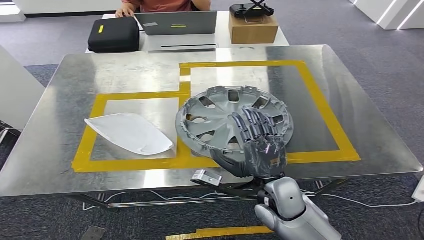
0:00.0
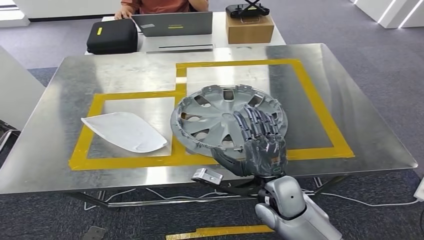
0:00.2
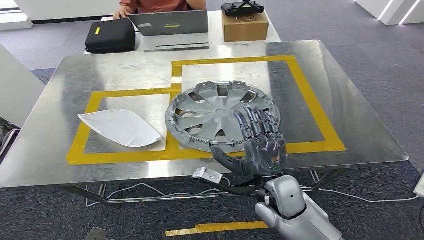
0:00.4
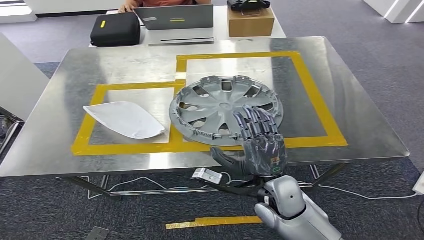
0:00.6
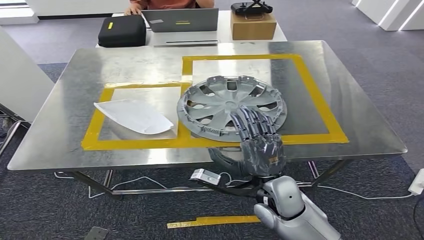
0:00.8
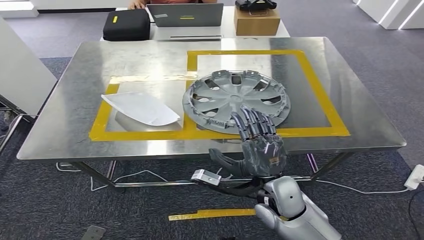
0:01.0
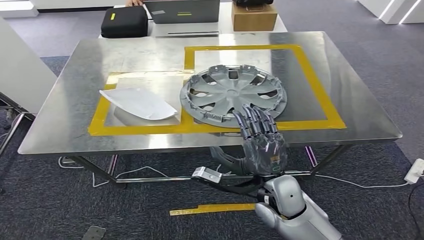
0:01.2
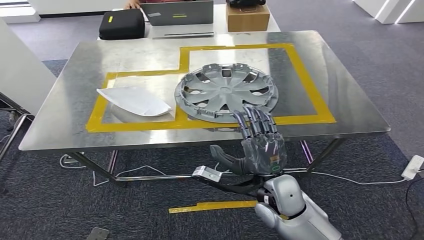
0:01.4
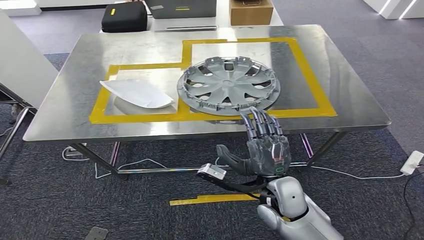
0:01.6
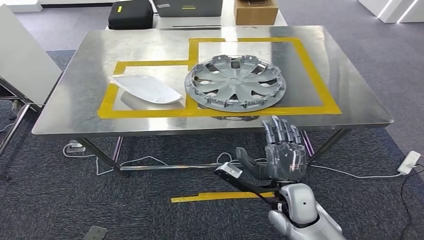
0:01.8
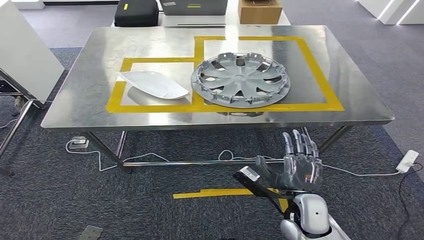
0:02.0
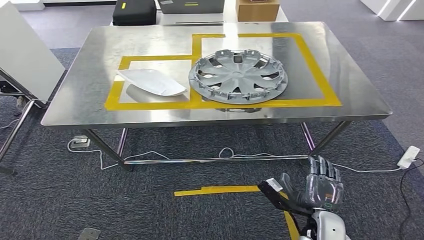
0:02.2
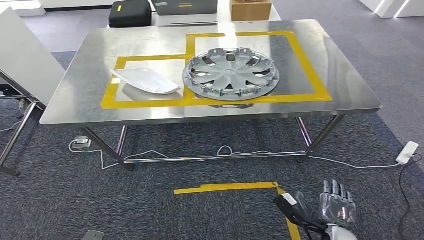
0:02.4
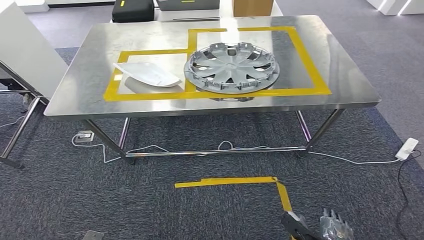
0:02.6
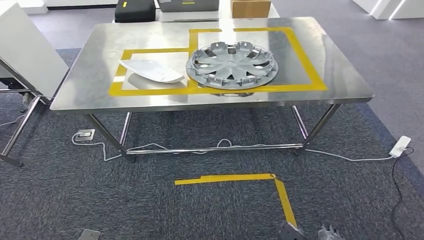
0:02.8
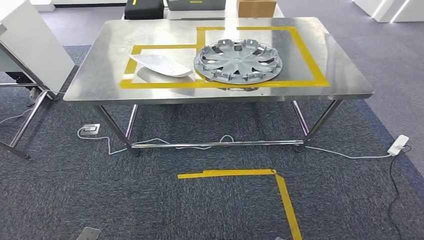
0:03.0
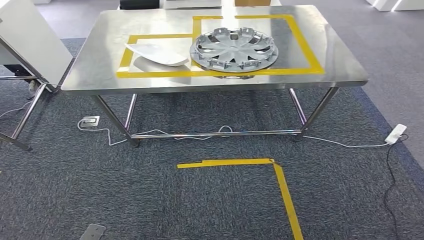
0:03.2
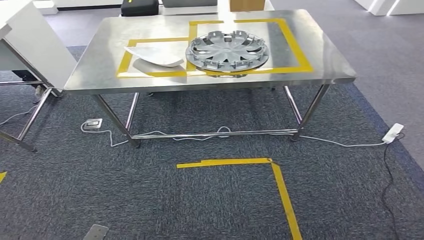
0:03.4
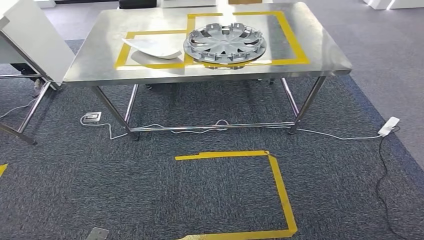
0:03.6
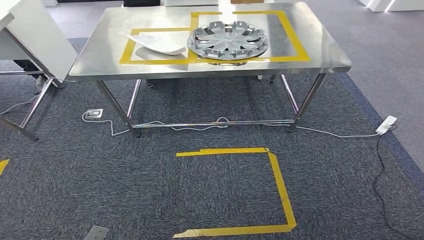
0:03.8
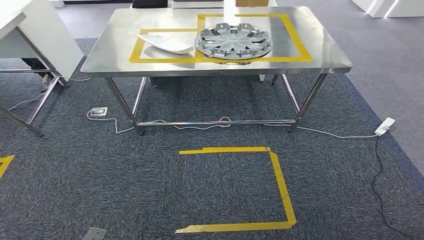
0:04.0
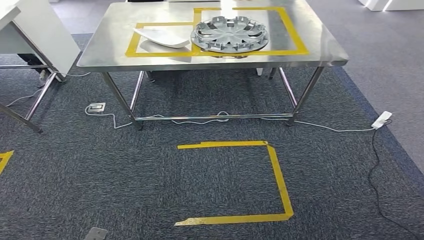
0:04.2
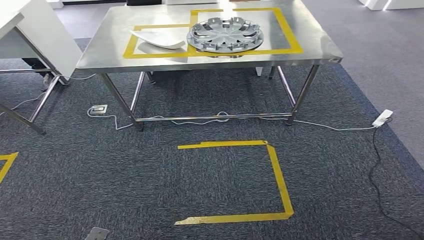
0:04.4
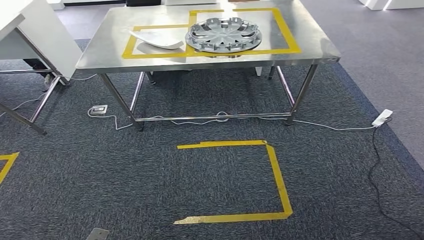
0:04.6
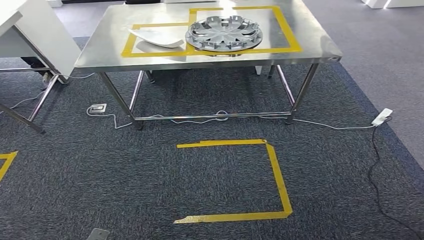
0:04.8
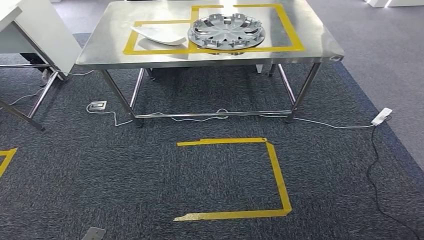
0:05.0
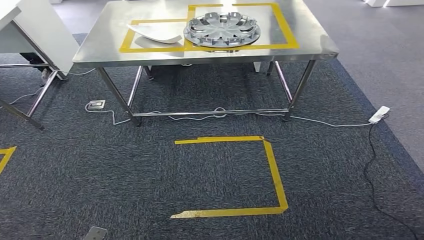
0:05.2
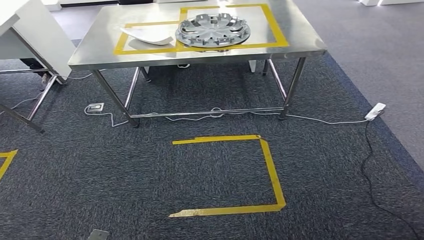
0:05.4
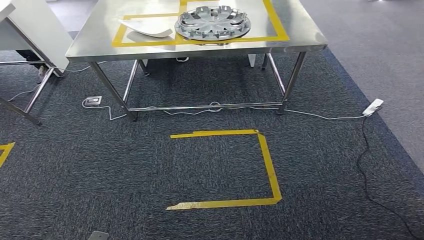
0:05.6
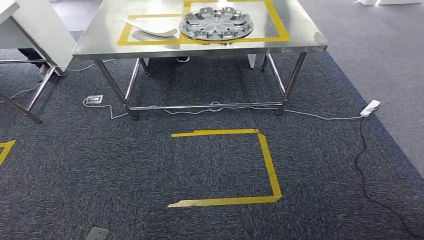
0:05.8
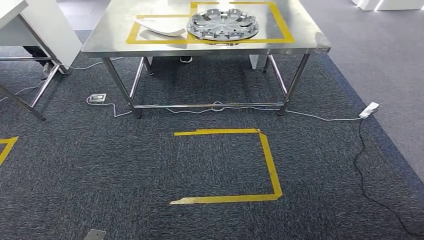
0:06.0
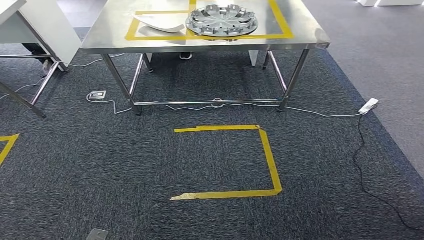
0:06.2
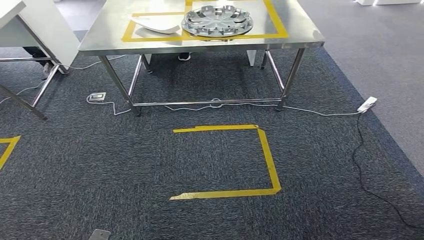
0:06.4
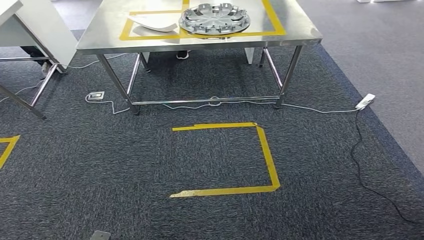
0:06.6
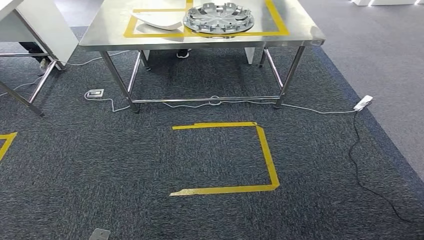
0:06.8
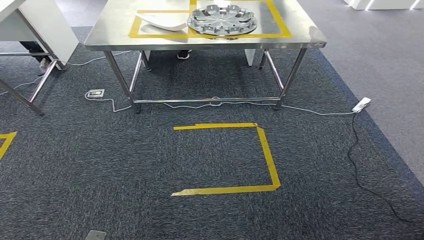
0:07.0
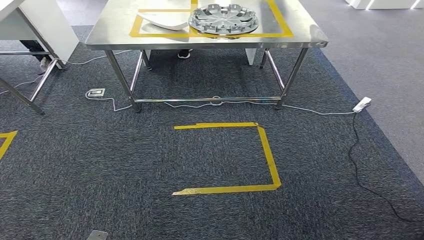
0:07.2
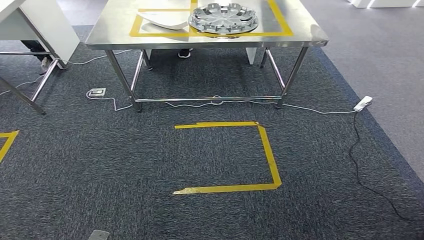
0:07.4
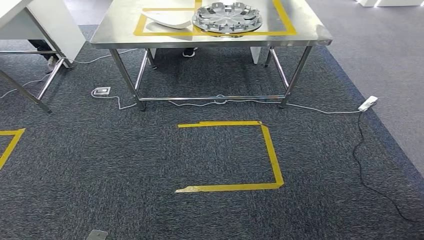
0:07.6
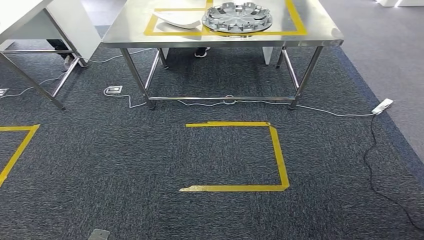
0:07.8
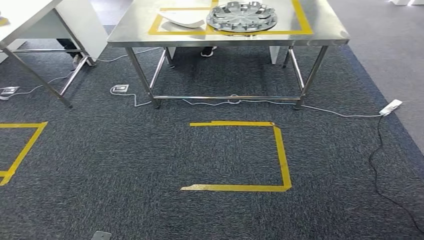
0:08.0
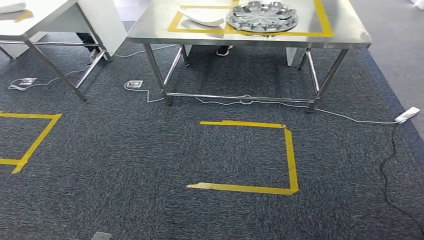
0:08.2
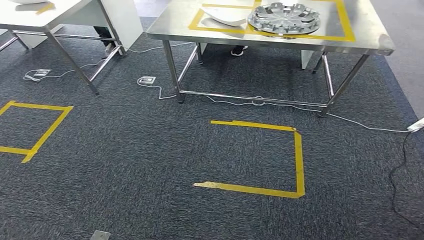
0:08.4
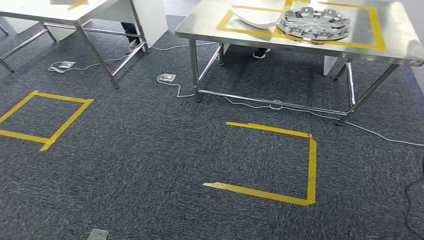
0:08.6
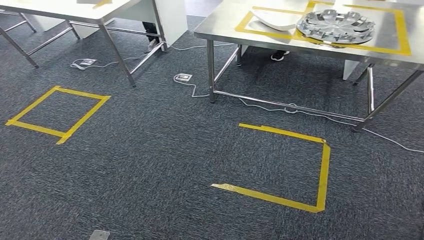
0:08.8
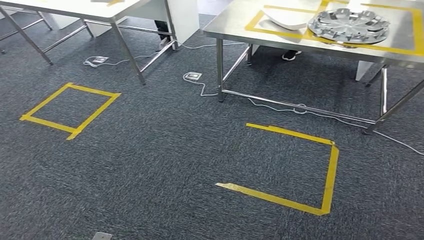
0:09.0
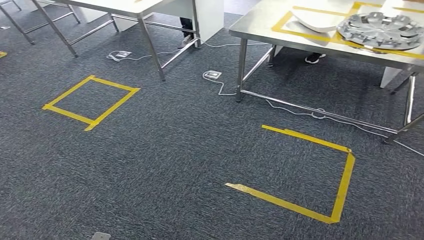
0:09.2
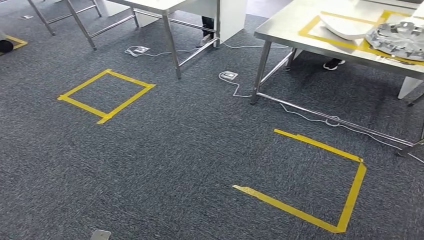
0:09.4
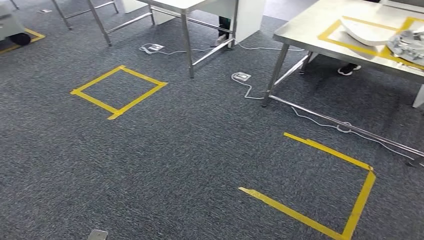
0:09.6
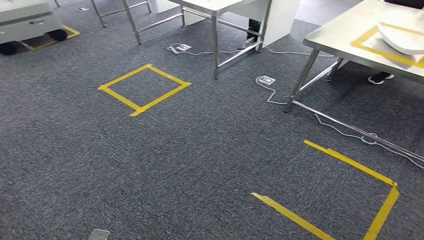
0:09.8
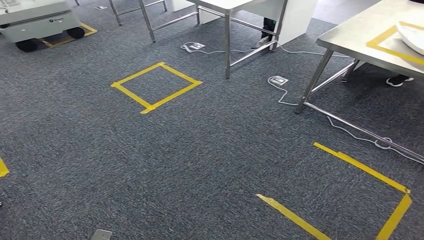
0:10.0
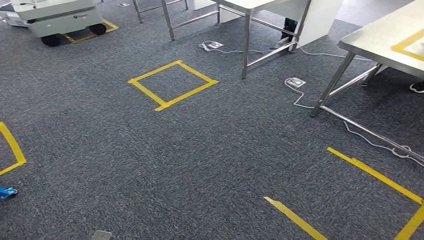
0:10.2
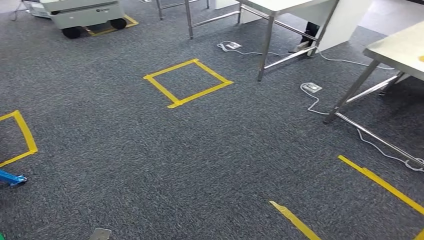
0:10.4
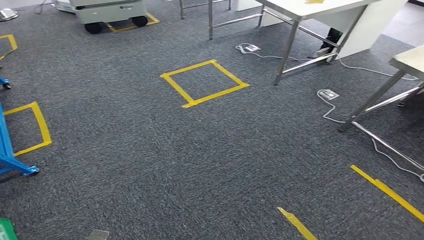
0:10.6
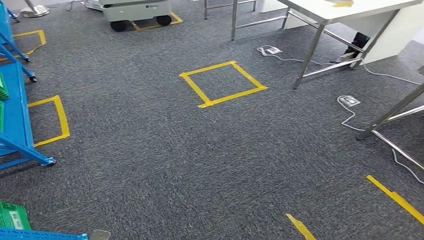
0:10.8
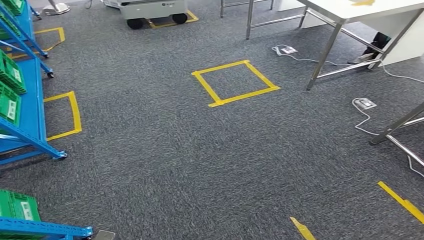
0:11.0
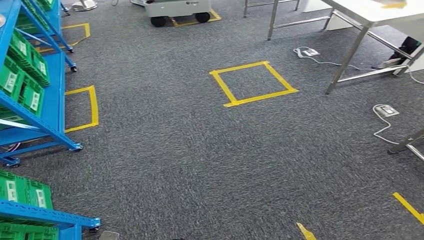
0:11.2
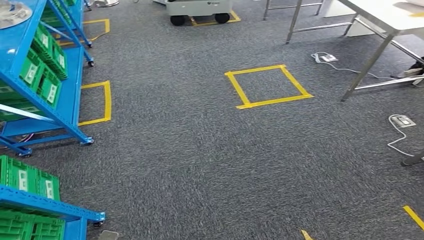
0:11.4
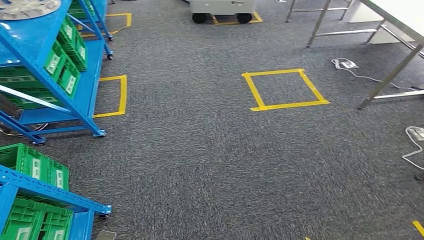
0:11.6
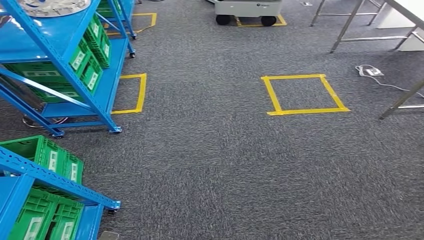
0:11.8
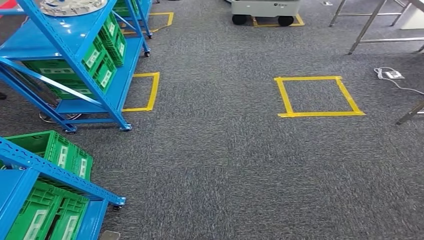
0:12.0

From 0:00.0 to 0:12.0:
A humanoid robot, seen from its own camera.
From 0:06.0 to 0:07.6: The hands move only a little.

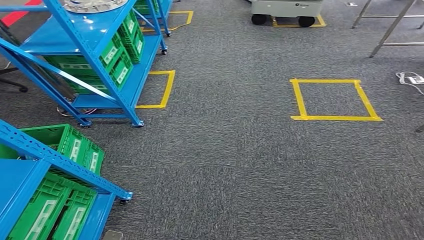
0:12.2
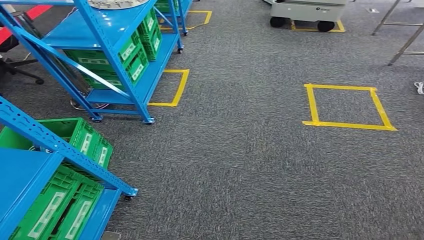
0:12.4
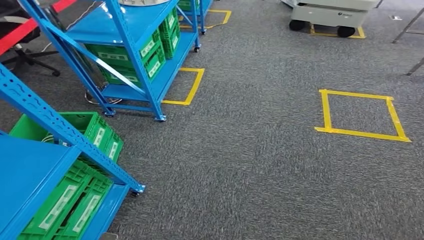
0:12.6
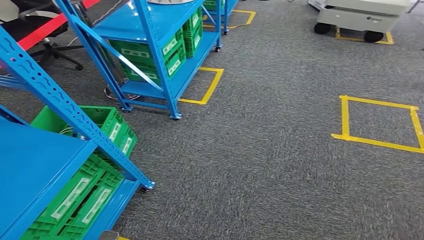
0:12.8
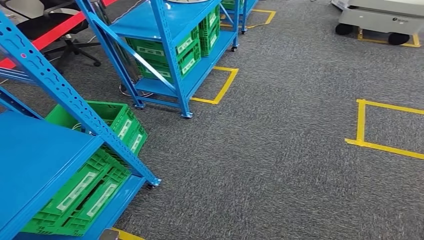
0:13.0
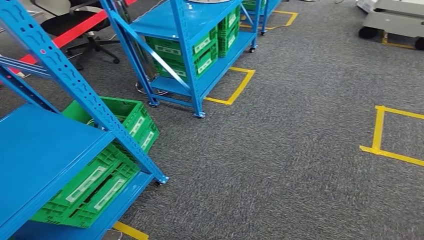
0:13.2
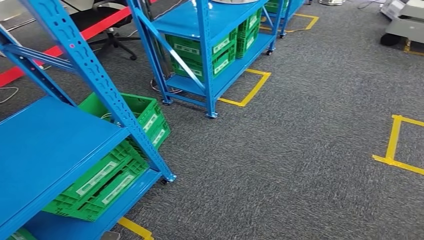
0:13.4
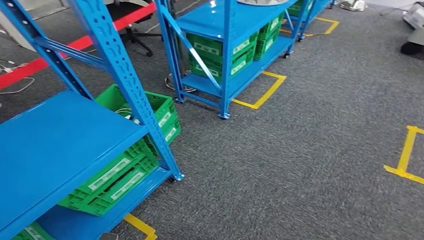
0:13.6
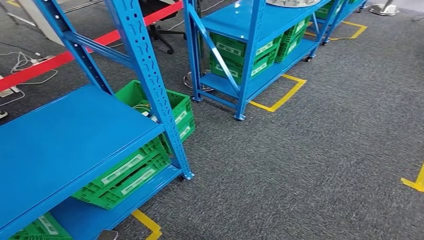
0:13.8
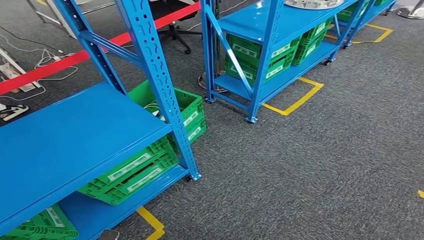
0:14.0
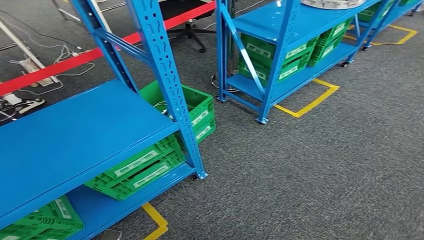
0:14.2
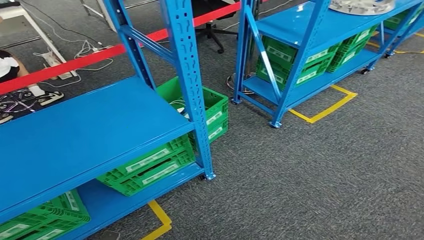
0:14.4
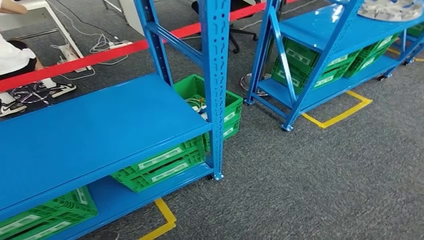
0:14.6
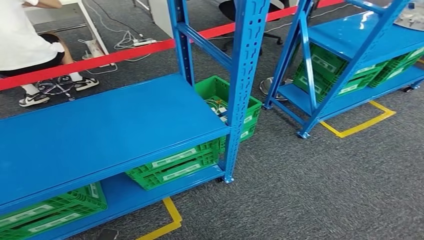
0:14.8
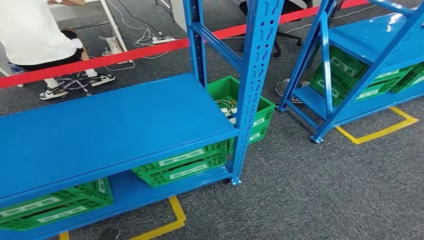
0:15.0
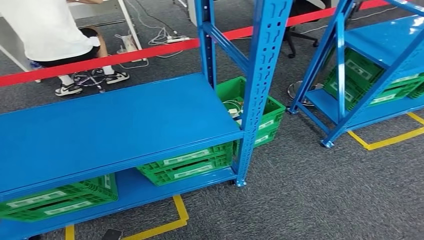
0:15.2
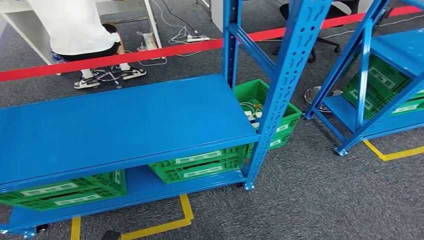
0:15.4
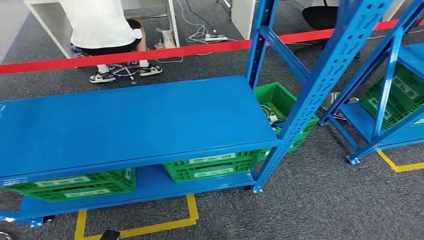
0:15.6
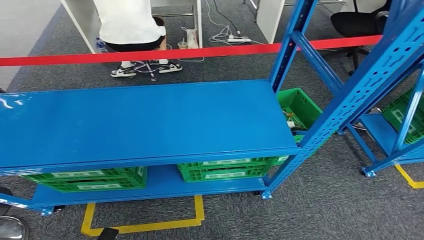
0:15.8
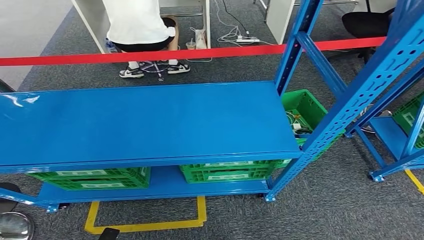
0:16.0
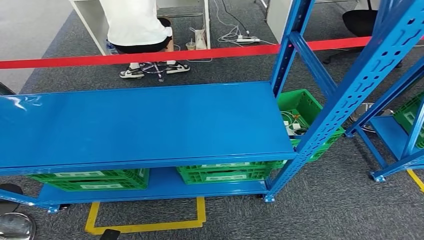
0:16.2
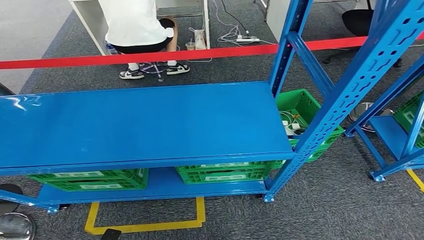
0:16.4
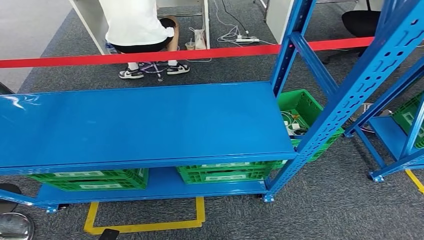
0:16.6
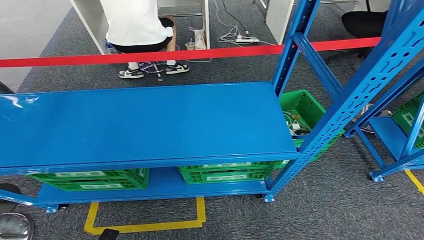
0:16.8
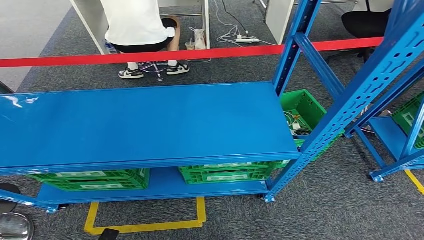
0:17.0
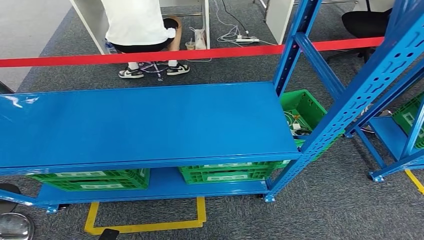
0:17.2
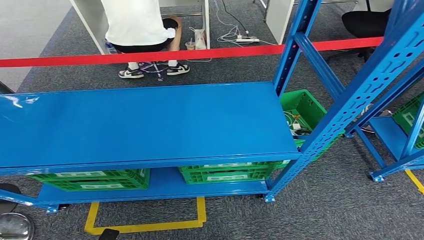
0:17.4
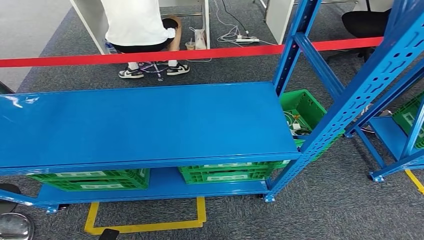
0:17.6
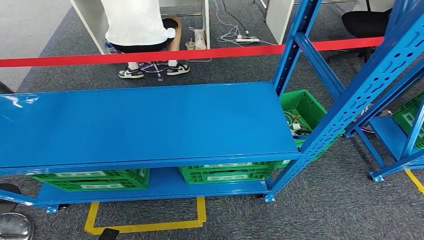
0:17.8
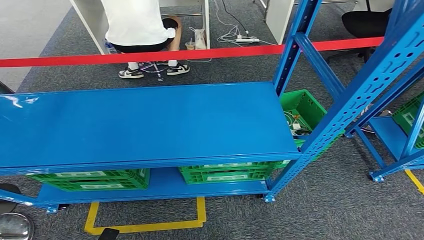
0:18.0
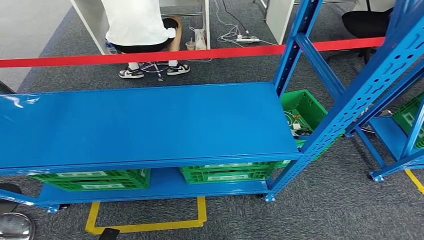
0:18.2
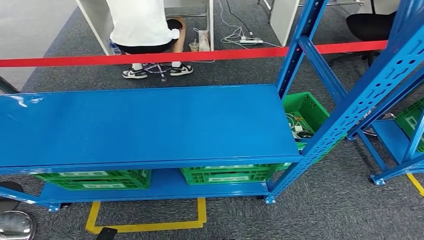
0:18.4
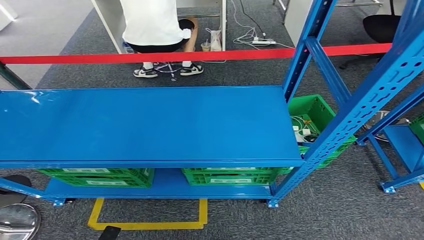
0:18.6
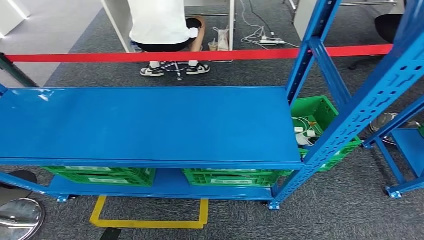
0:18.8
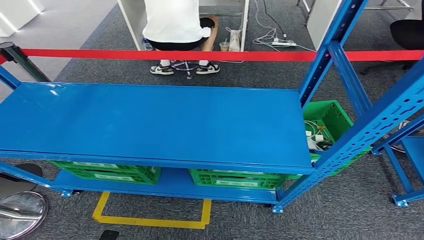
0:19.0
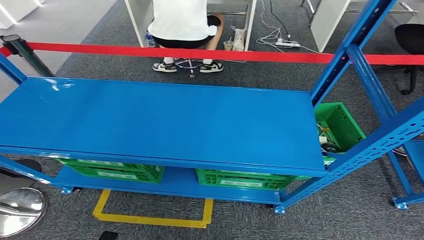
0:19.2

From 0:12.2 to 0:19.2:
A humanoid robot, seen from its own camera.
Step, from 0:12.2 to 0:19.2: Move to the initial position at the workbench.
From 0:16.4 to 0:17.8: Both hands stay put.
